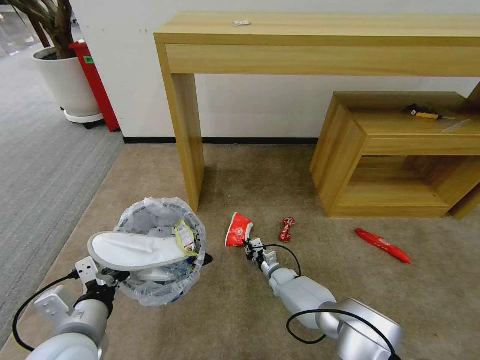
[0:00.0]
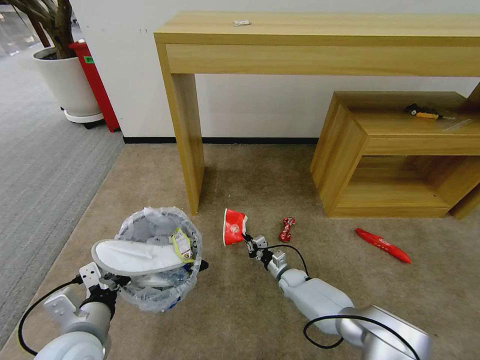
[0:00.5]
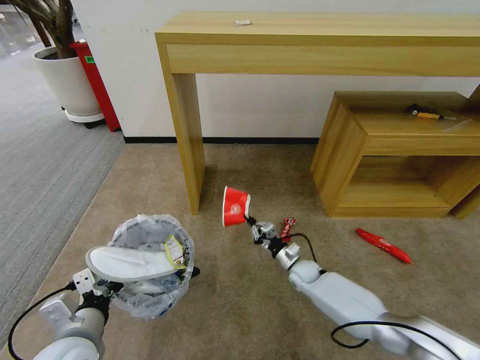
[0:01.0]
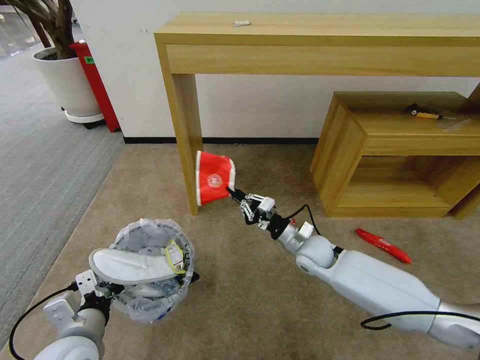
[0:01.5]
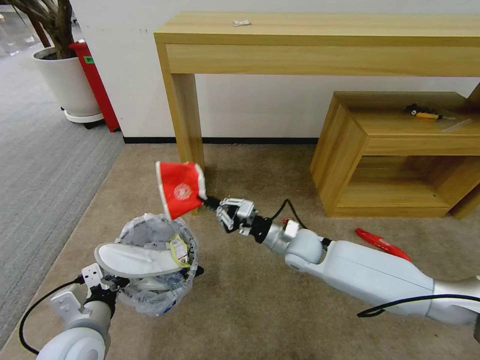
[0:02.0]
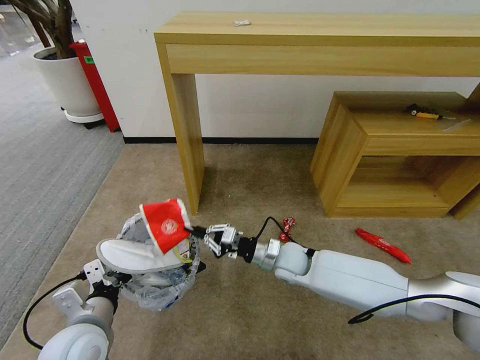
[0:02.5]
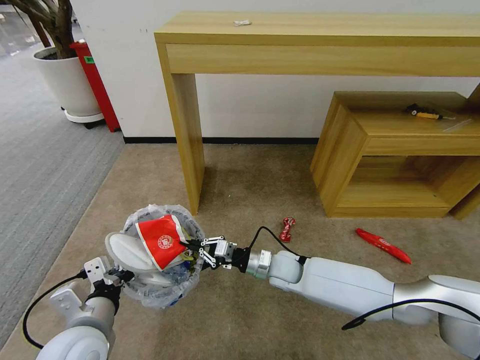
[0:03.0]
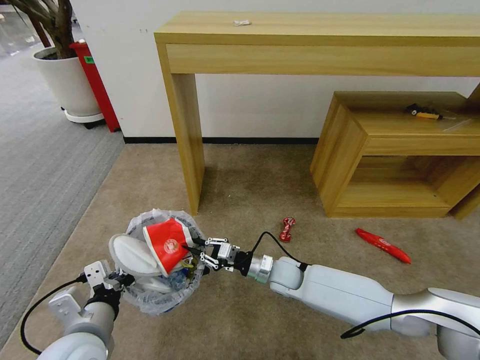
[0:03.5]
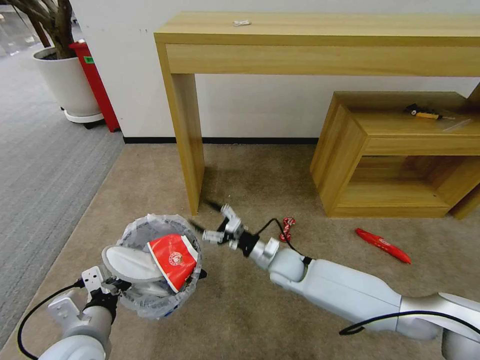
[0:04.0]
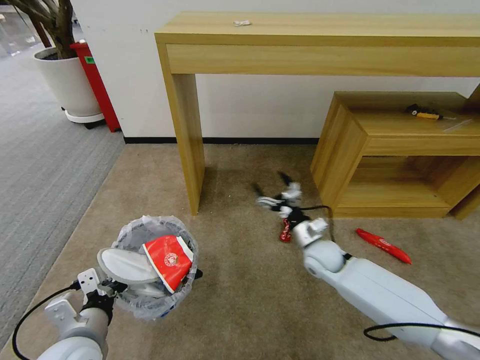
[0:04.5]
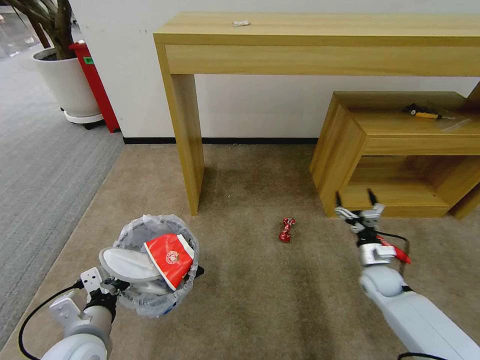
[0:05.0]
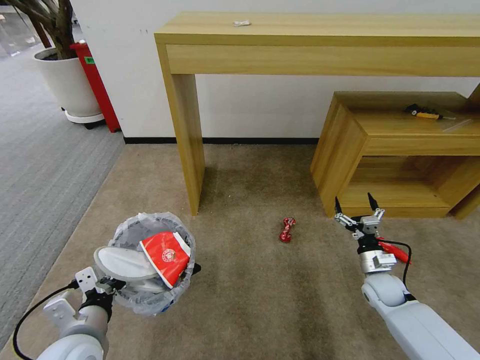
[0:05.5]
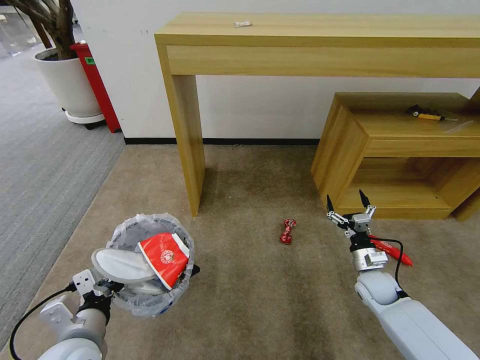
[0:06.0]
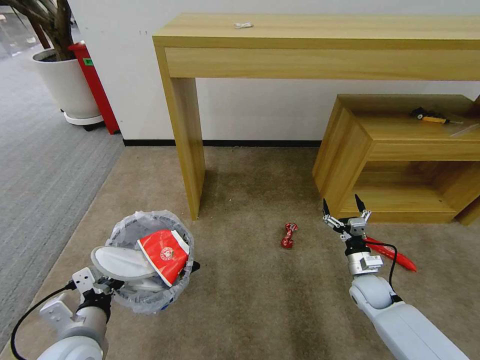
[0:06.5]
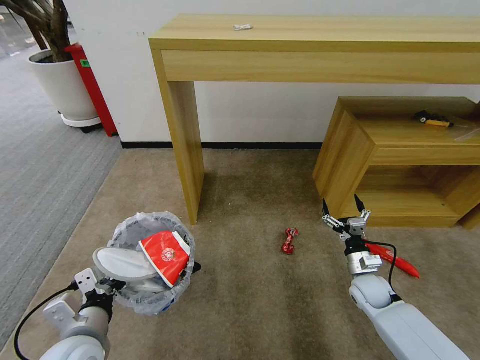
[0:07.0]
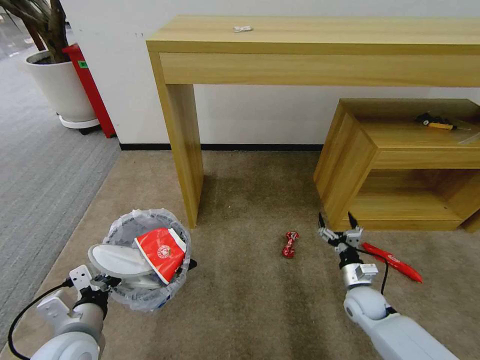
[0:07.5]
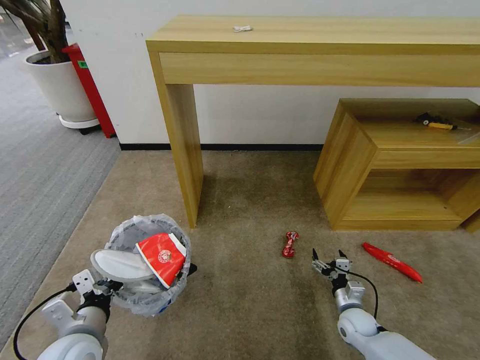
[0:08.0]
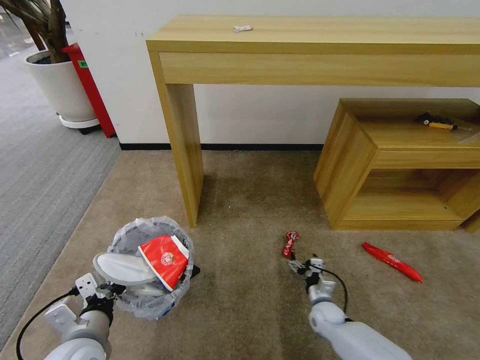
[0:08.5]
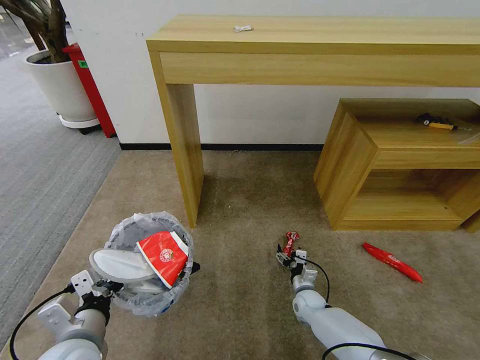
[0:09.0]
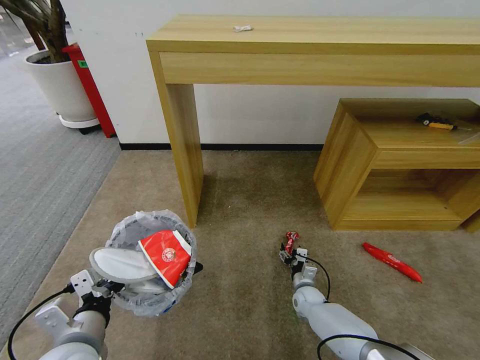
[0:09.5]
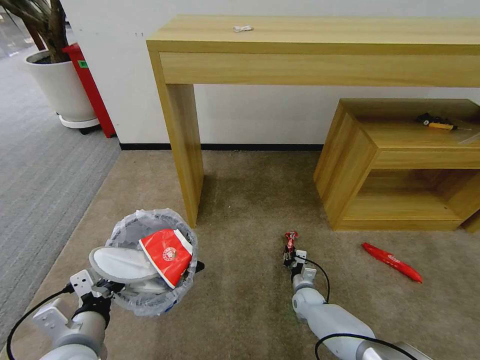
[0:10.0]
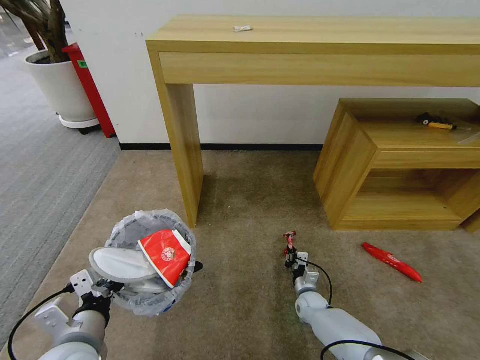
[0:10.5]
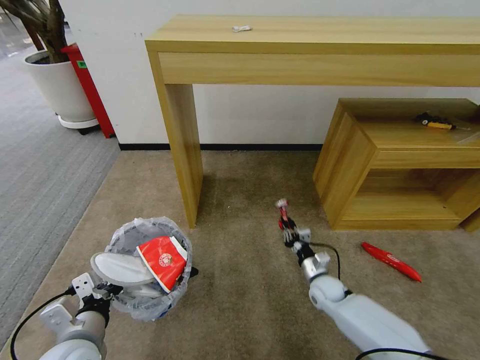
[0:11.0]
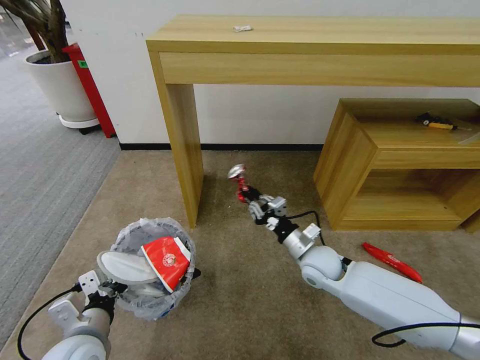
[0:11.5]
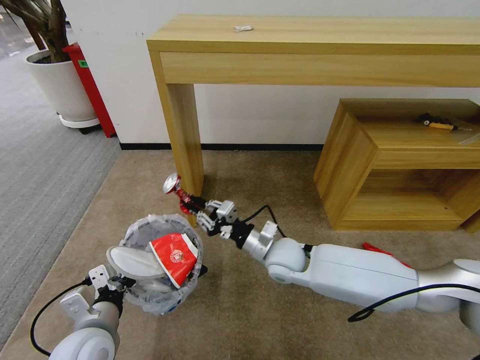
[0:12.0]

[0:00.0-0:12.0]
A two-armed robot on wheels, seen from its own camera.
Task of the whole recording: Pick up the trash bin and place the garbage on the floor into it.
0:00.0 to 0:02.0: The right gripper goes roughly 25 cm upward.
0:02.0 to 0:04.0: The right gripper shifts some 10 cm downward, and opens.
0:04.0 to 0:06.0: The right gripper shifts some 25 cm to the right.
0:06.0 to 0:08.0: The right gripper is displaced downward and backward by some 15 cm.
0:08.0 to 0:10.0: The right gripper is displaced to the left, forward and downward by roughly 15 cm, and closes up.
0:10.0 to 0:12.0: The right gripper heads upward and to the left, covering some 30 cm.

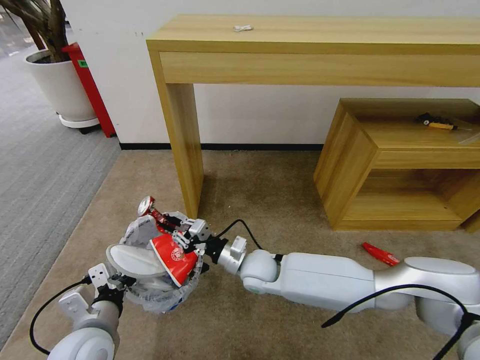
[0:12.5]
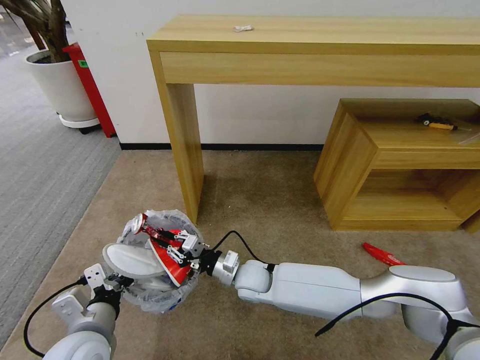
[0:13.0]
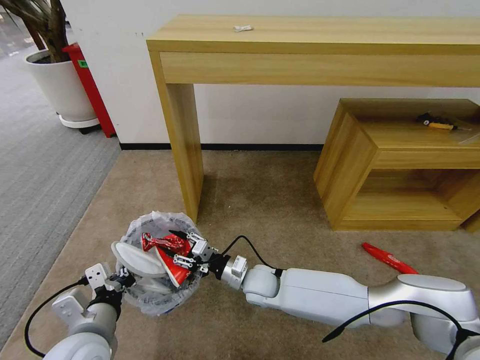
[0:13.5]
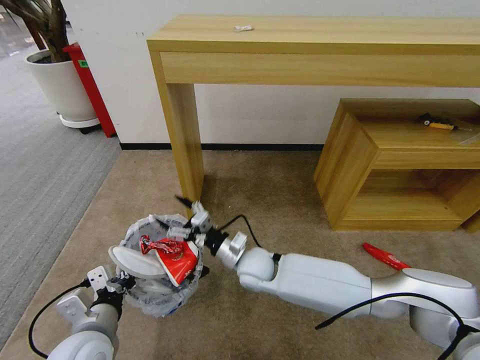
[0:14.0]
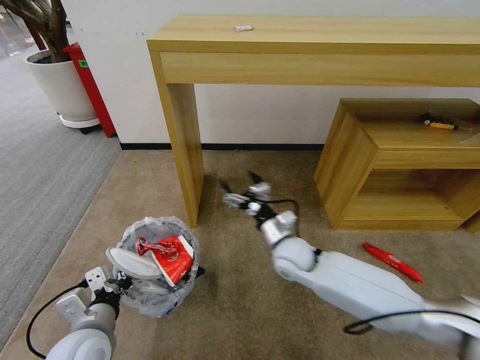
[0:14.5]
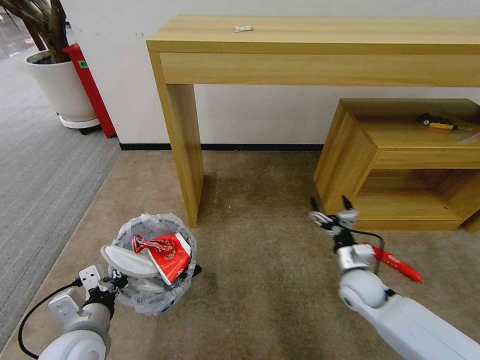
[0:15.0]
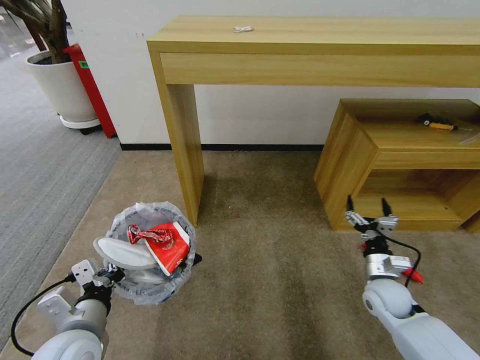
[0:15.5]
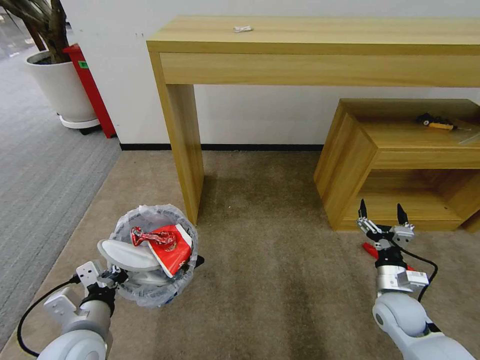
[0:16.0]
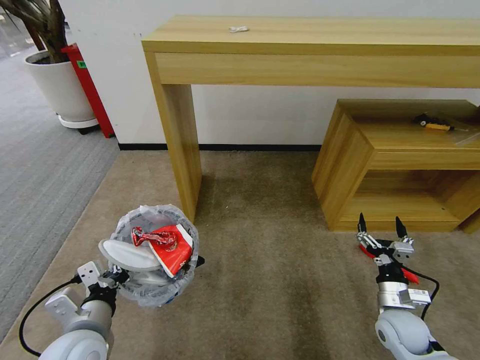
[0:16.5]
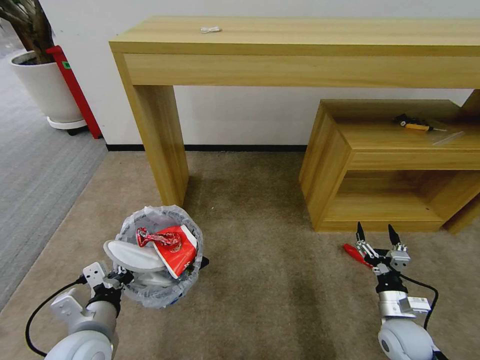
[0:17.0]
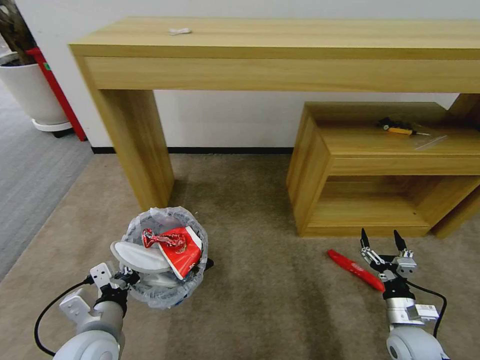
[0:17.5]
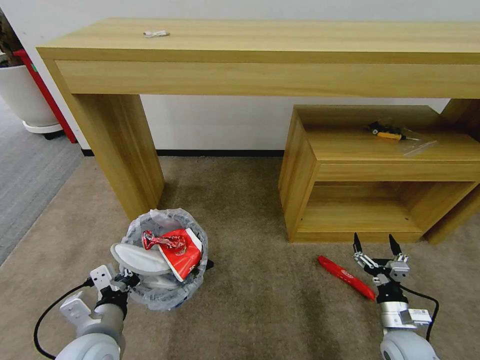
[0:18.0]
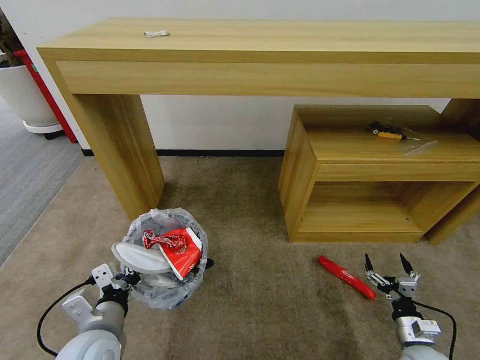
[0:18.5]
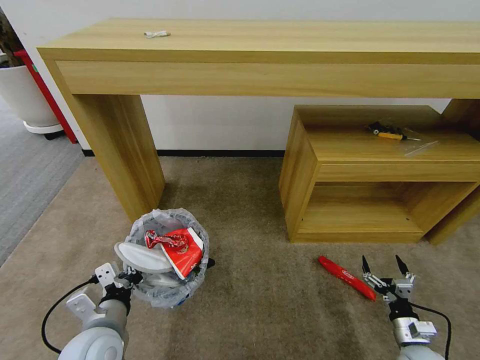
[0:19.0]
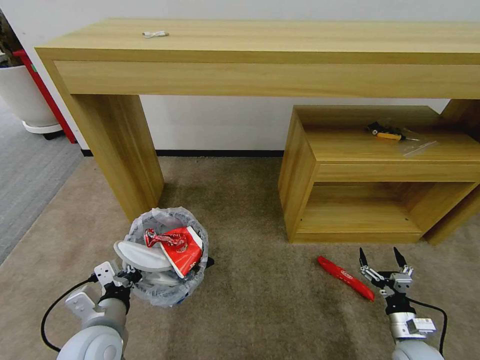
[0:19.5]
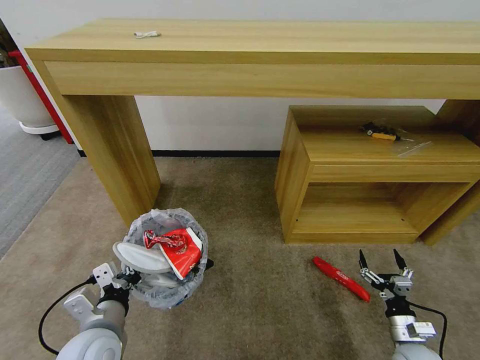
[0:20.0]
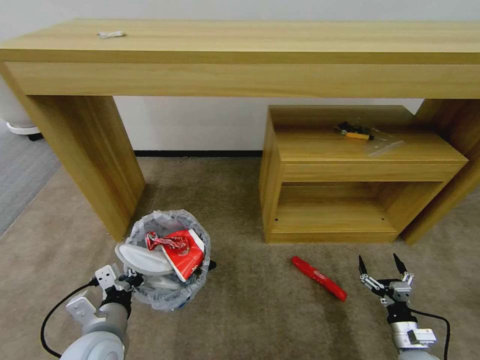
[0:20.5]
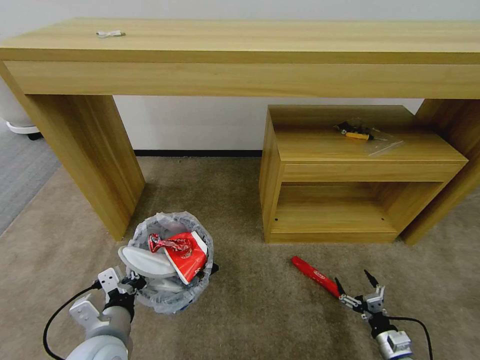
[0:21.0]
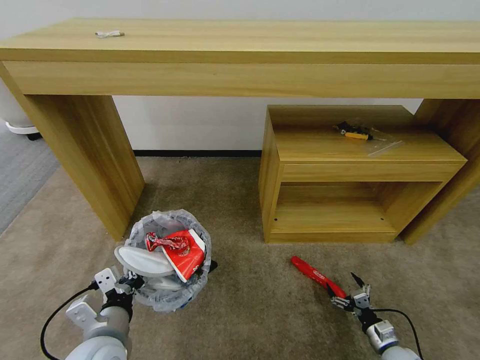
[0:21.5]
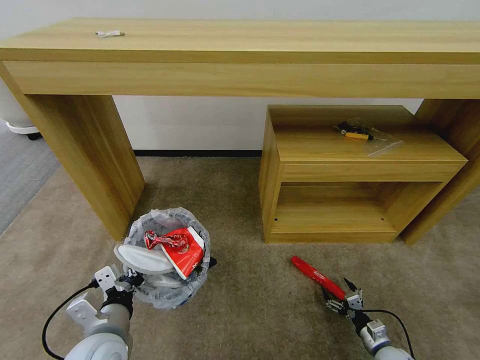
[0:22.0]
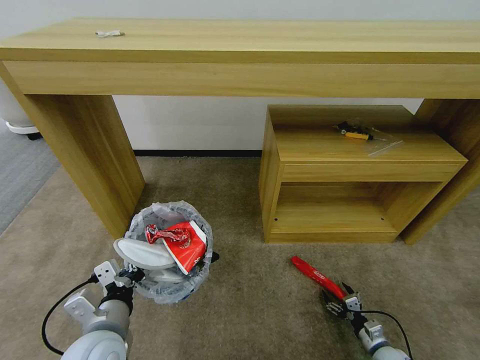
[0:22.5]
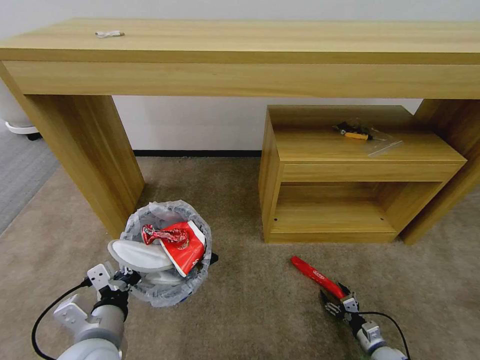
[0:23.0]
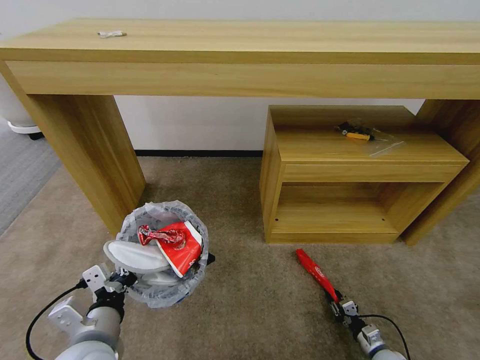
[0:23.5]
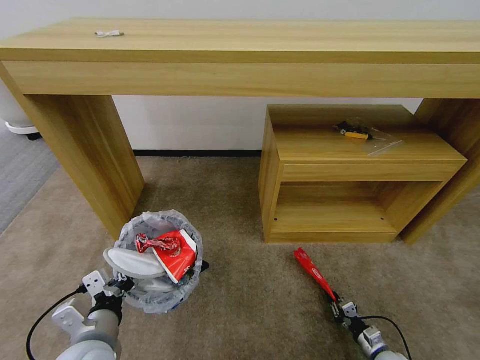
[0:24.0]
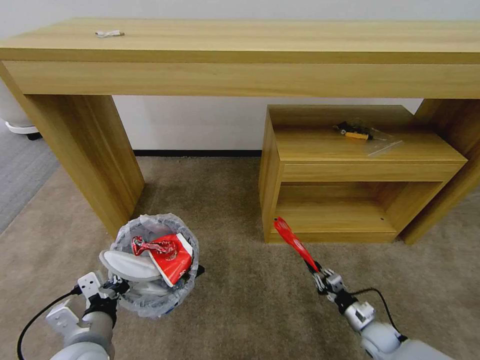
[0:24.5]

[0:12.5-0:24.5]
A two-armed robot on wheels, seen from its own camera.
Task of the whole recording: Pick up the trash bin and place the garbage on the floor into it.
0:12.5 to 0:14.5: The right gripper goes approximately 5 cm to the right, and opens its fingers.
0:14.5 to 0:16.5: The right gripper shifts roughly 30 cm to the right and backward.
0:16.5 to 0:18.5: The right gripper heads downward, to the right and backward, covering roughly 10 cm.
0:18.5 to 0:20.5: The grippers make only small movements.
0:20.5 to 0:22.5: The right gripper travels downward by about 10 cm.
0:22.5 to 0:24.5: The right gripper moves upward, about 5 cm, and closes its fingers.

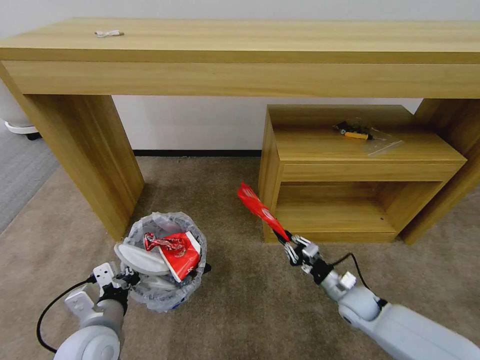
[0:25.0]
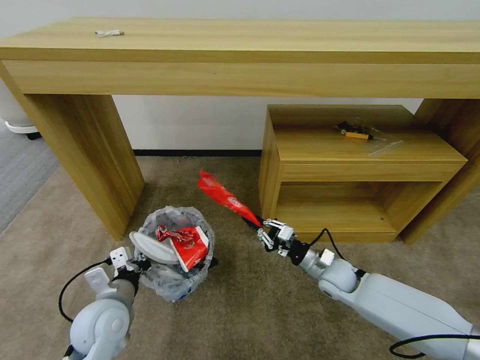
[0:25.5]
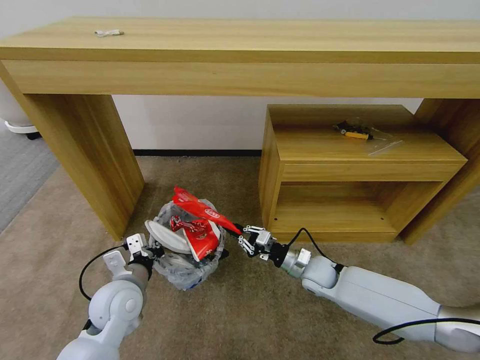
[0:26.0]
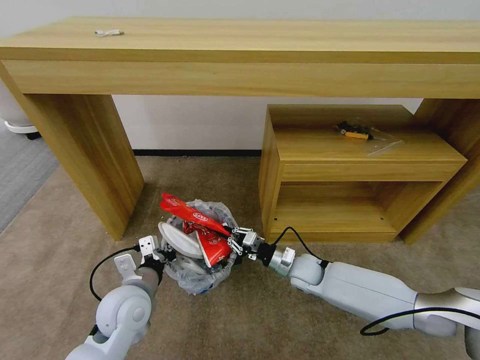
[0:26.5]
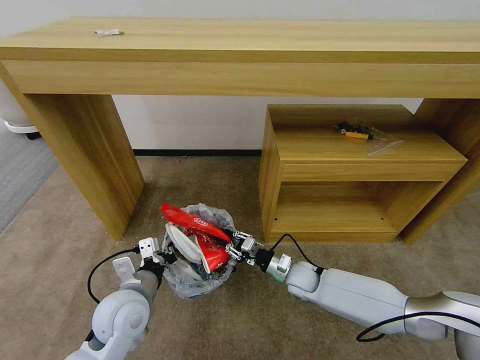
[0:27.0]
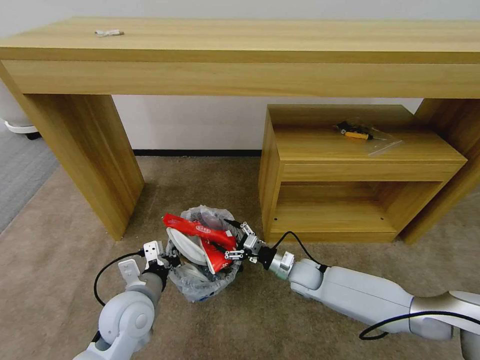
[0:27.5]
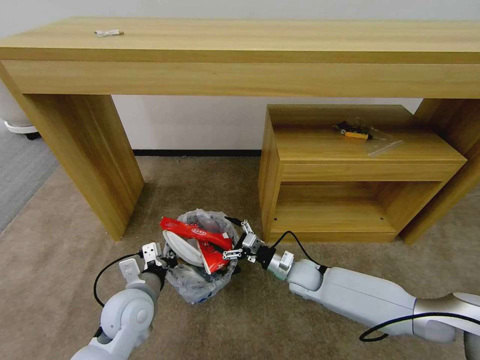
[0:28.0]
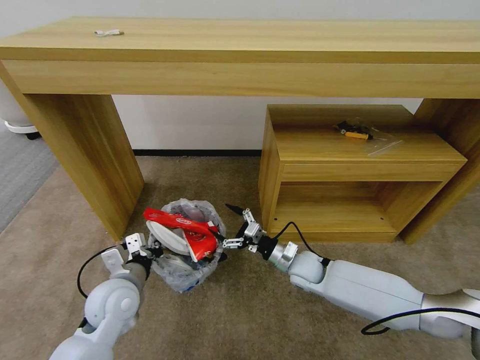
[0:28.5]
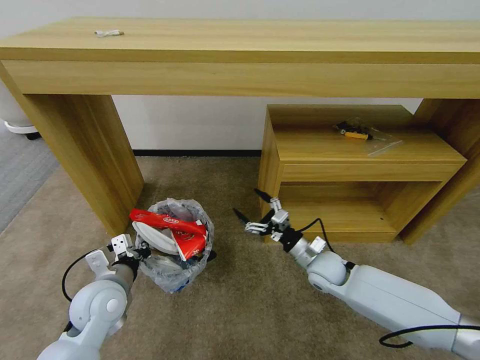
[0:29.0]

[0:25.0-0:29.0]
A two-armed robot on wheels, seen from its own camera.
Task of the whole recording: Pick up the trash bin and place the garbage on the floor into it.
0:25.0 to 0:27.0: The right gripper heads to the left and forward, covering approximately 15 cm; the left gripper is displaced forward by approximately 5 cm.
0:27.0 to 0:29.0: The left gripper heads to the left, covering about 5 cm, while the right gripper is displaced upward by some 5 cm, and opens its fingers.
